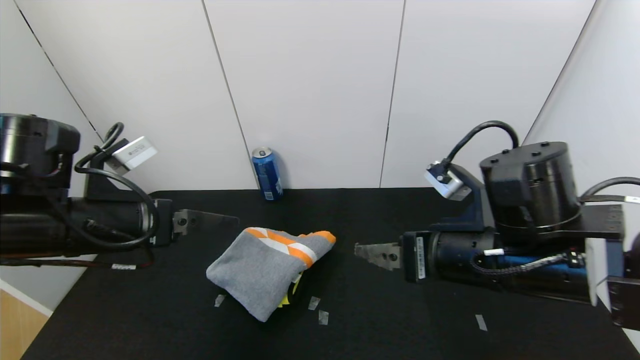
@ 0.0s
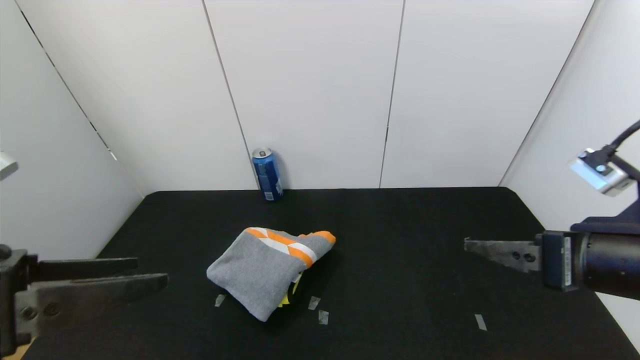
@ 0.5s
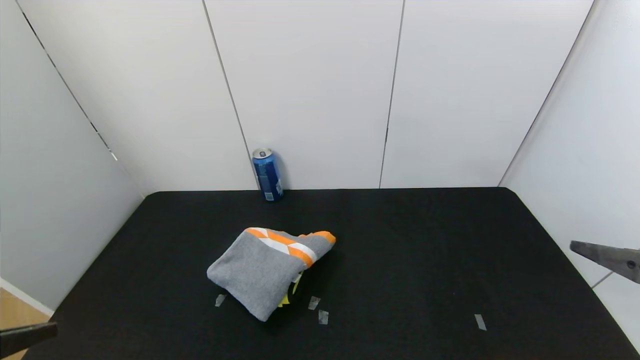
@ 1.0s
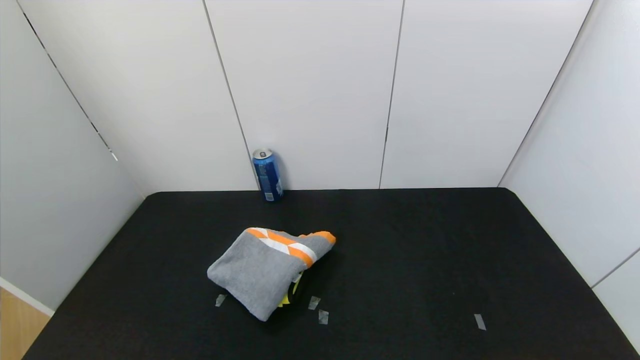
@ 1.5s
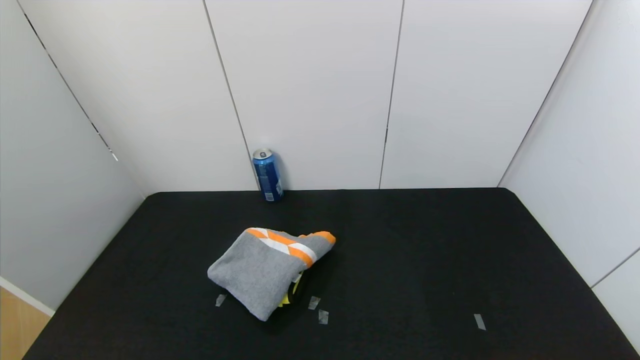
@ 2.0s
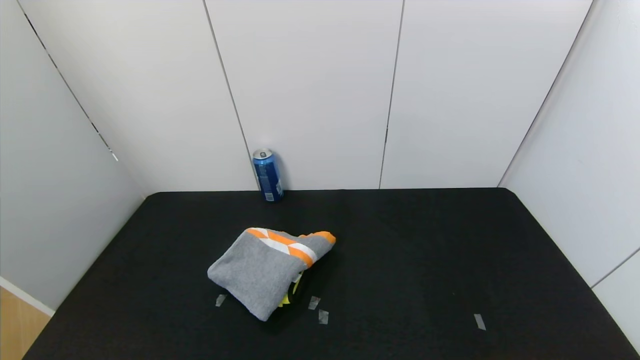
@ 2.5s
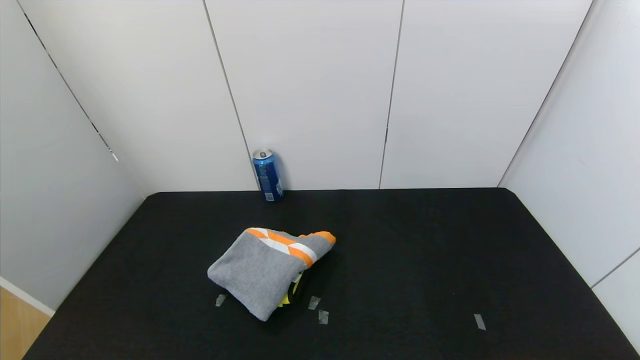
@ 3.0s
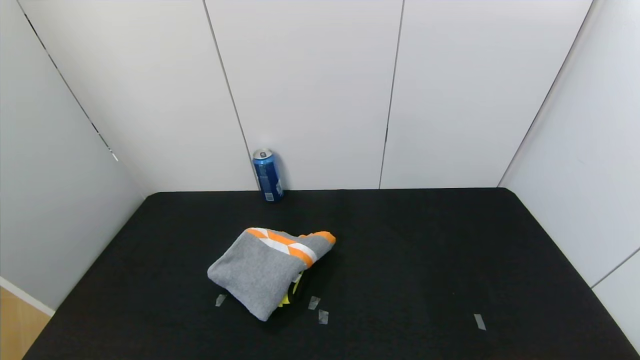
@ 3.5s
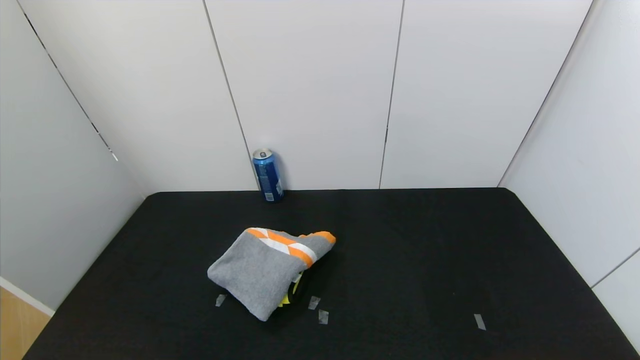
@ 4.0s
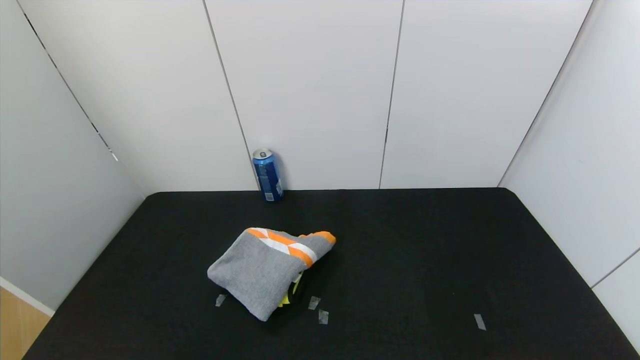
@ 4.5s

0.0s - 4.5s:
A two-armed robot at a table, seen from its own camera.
Task of the whole recording: Use the gripper to fold the yellow towel and grey towel in half twice,then put the yellow towel on the grey towel.
0.0s - 2.0s: The right gripper goes some 35 cm backward and to the right; the left gripper heads backward, covering roughly 30 cm.
